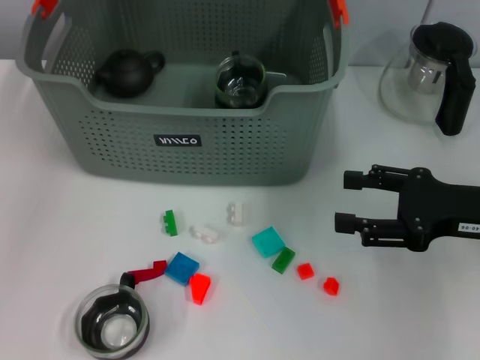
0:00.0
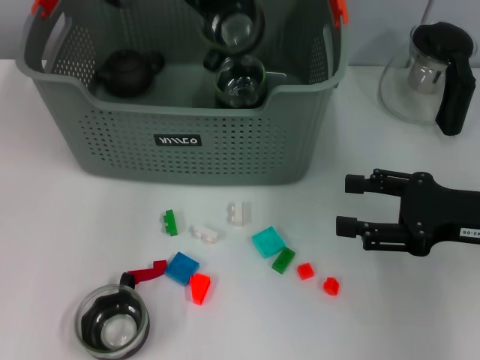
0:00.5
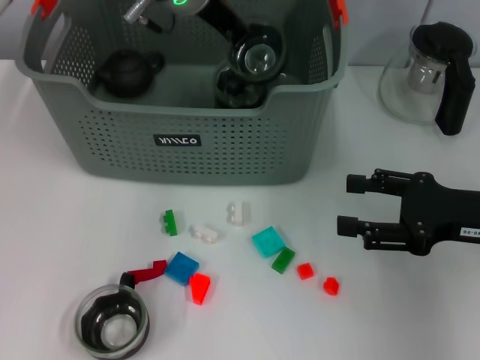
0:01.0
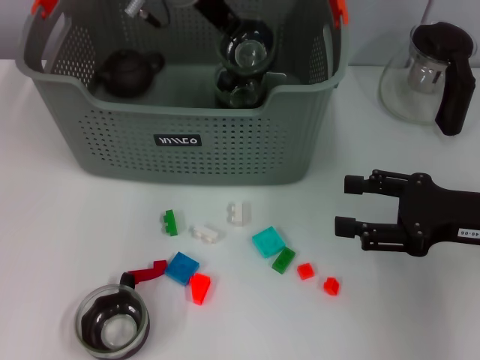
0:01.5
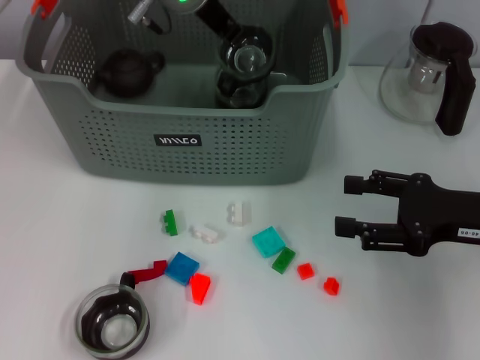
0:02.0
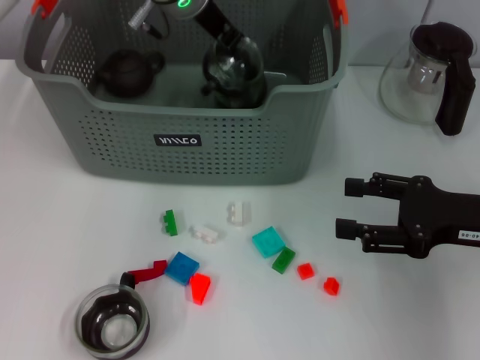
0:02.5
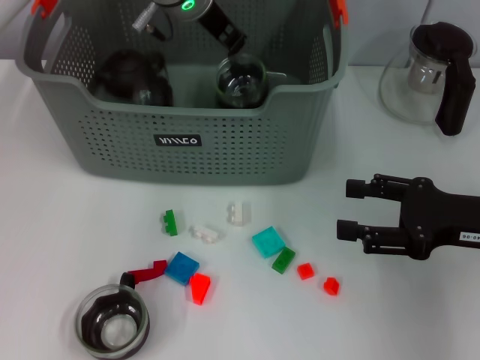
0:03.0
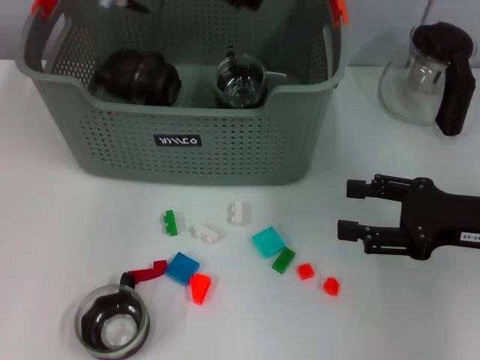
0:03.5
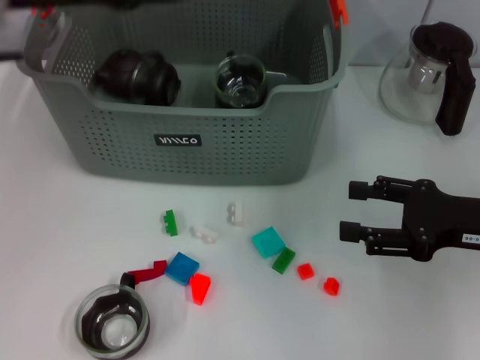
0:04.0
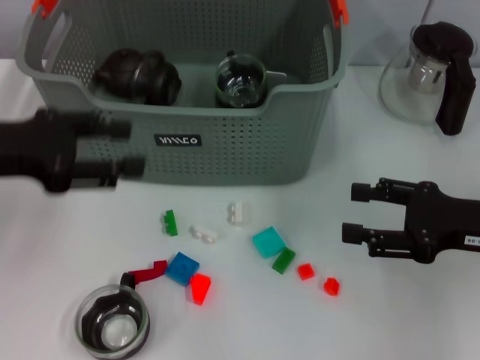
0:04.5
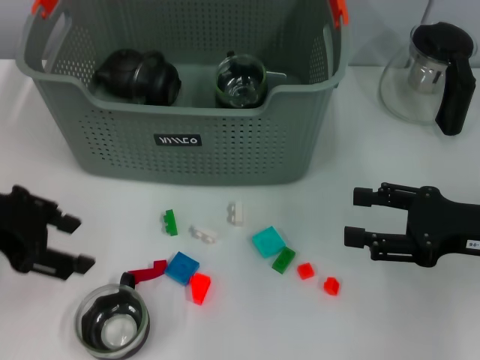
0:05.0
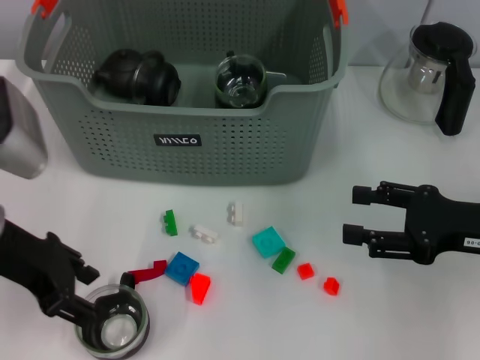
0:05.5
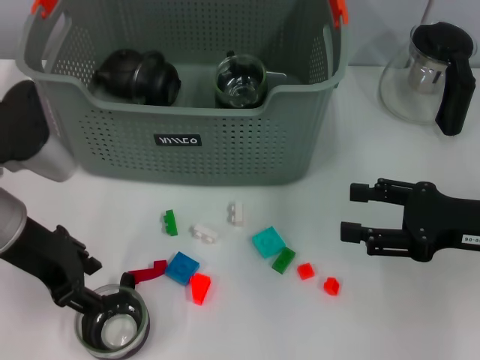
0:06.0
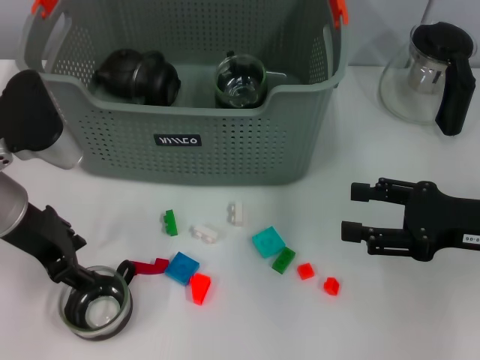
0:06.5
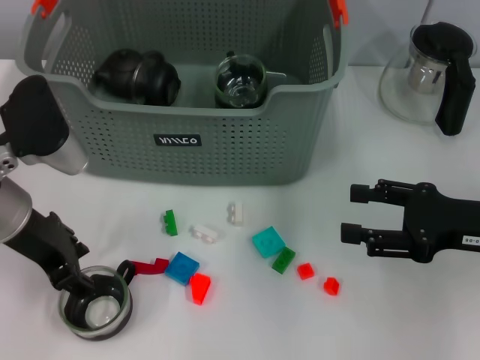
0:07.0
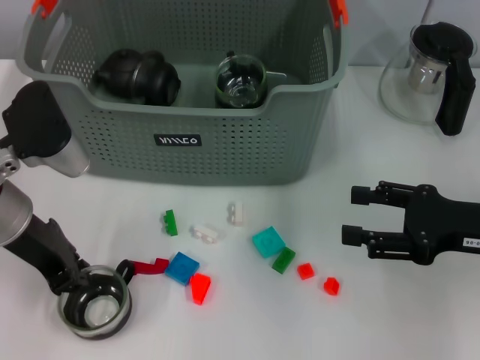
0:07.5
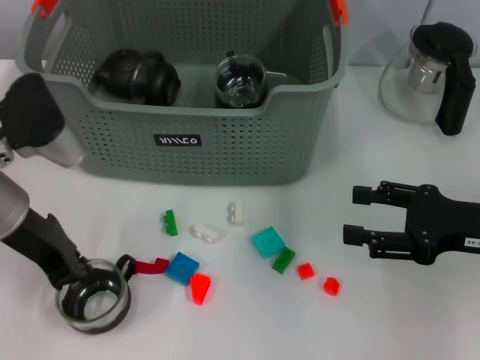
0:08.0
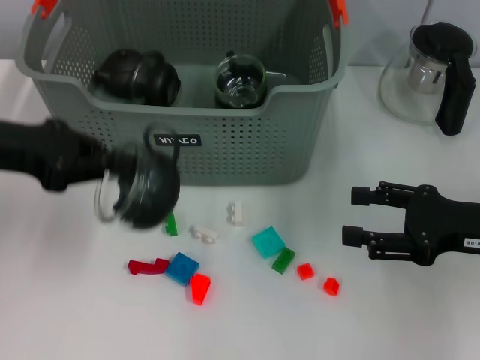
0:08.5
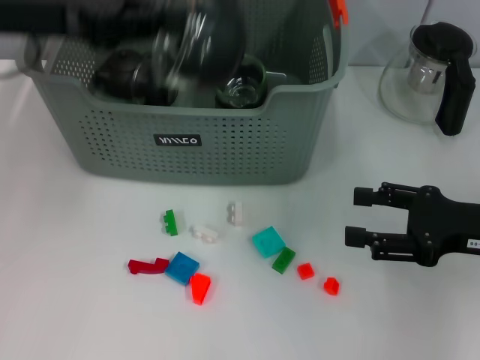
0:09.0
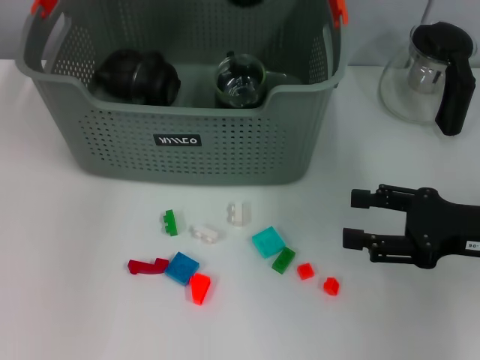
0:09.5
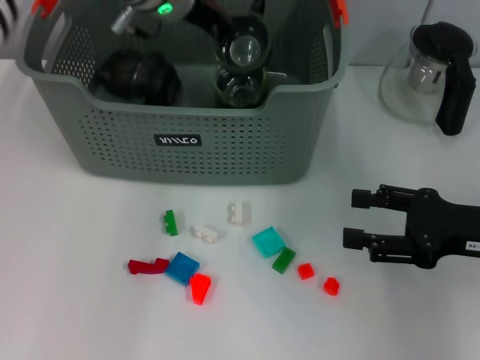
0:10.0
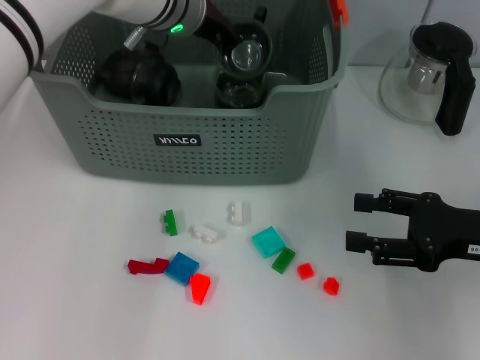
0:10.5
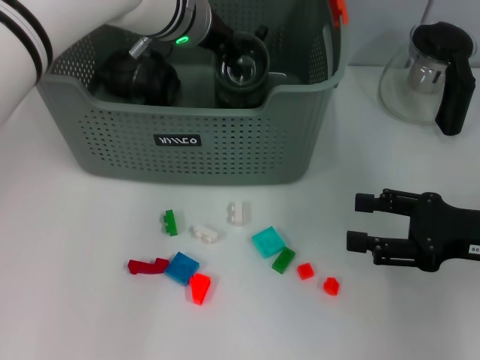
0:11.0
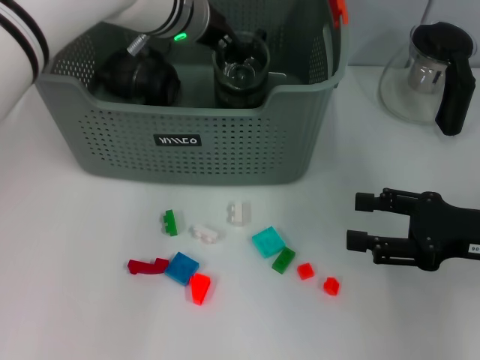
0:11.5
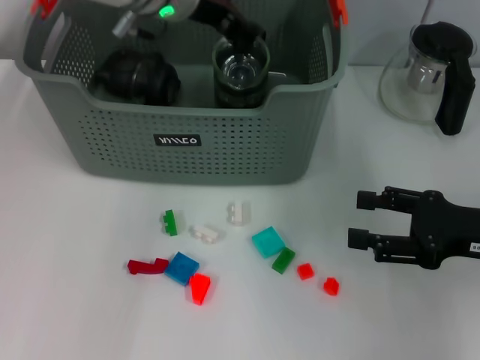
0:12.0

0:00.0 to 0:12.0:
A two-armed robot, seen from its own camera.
Task of the whole recording: pick up the teacup on the table and place it into the storage bin, pick up the block on the table and place it into the storage bin.
Step, 0:00.0 to 0:02.5: Place the cup in the storage box with left gripper.
Step, 0:03.0 to 0:07.5: Grasp the cup with left gripper.
Step, 0:08.0 to 0:11.5: Place the cup in the storage box with left gripper.
0:00.0 to 0:02.0: The left gripper travels to the right and downward by some 15 cm.
0:02.0 to 0:04.0: The left gripper moves to the left and backward, approximately 20 cm, and opens its fingers.
0:04.0 to 0:06.0: The left gripper is displaced downward and backward by approximately 15 cm.
0:06.0 to 0:08.0: The left gripper closes its fingers.
0:08.0 to 0:10.0: The left gripper is displaced forward, to the right and upward by about 20 cm.
0:10.0 to 0:12.0: The left gripper opens.

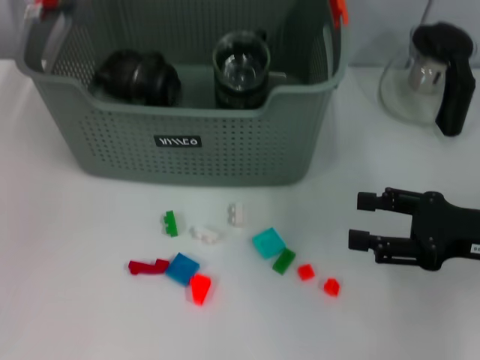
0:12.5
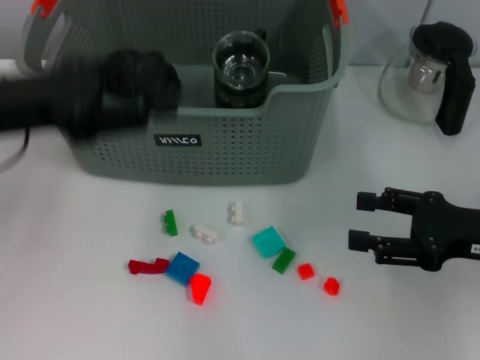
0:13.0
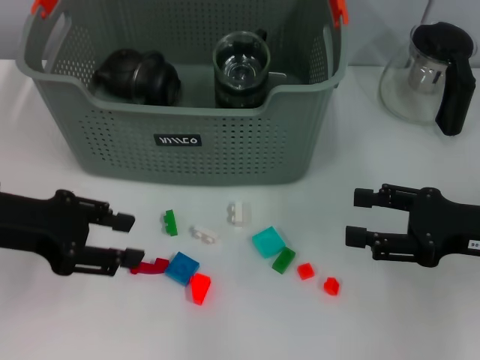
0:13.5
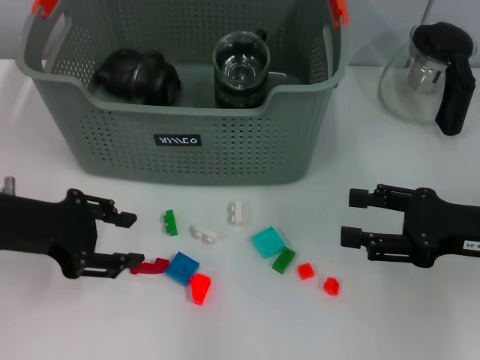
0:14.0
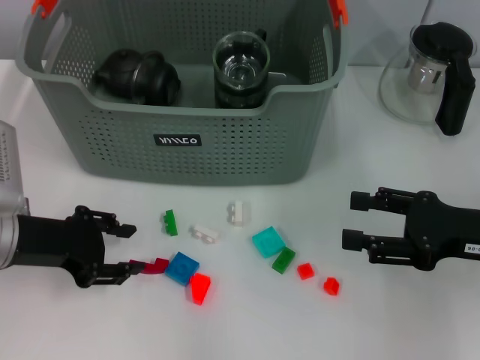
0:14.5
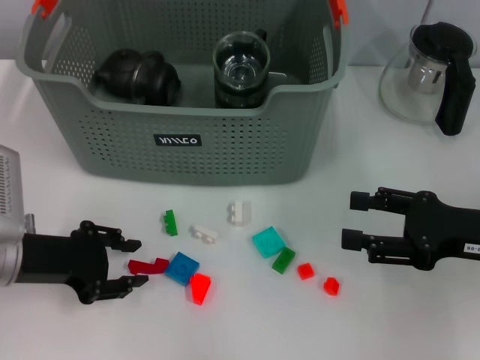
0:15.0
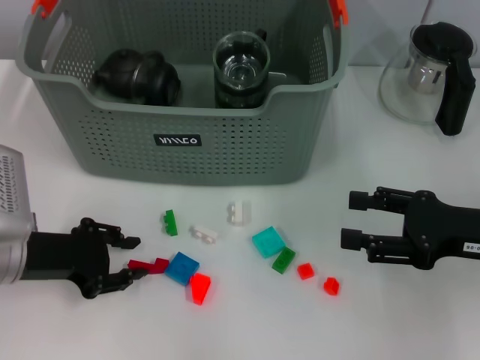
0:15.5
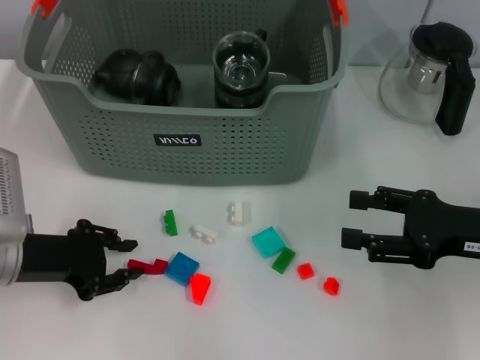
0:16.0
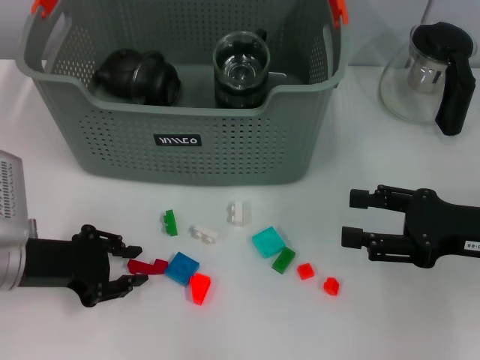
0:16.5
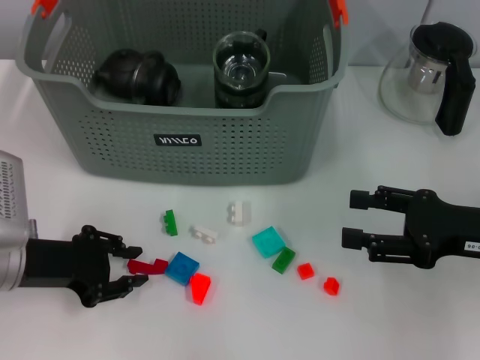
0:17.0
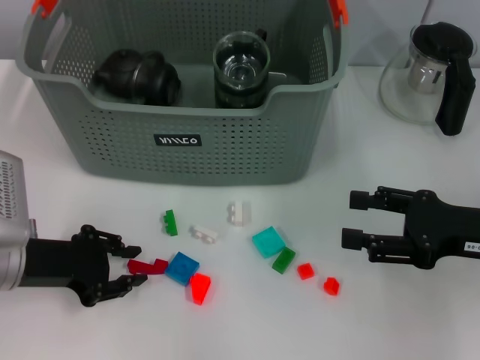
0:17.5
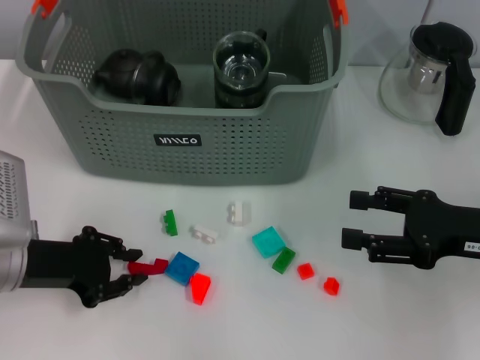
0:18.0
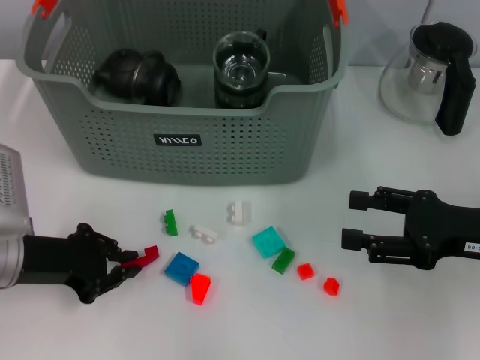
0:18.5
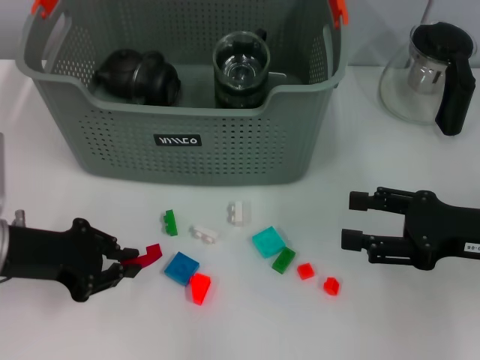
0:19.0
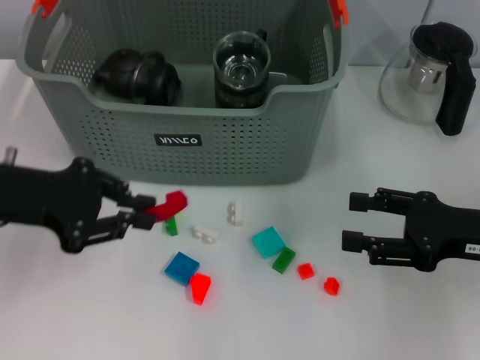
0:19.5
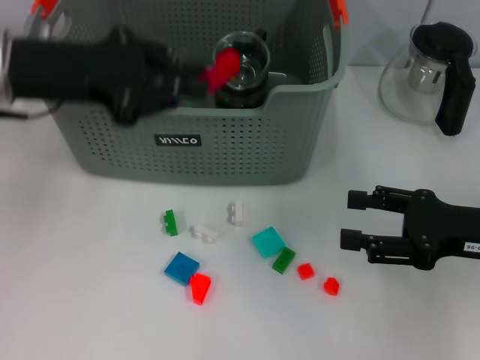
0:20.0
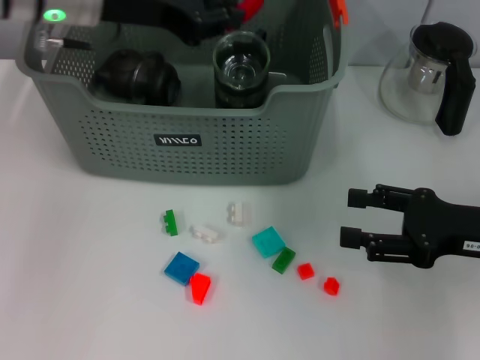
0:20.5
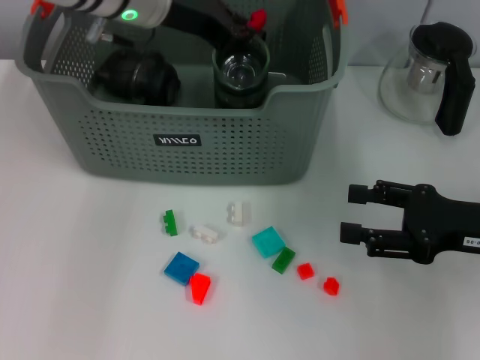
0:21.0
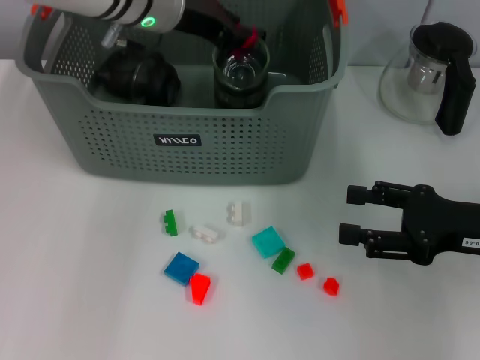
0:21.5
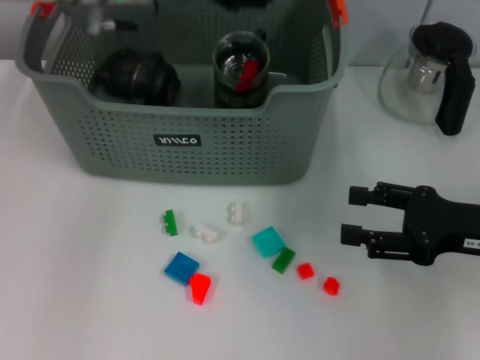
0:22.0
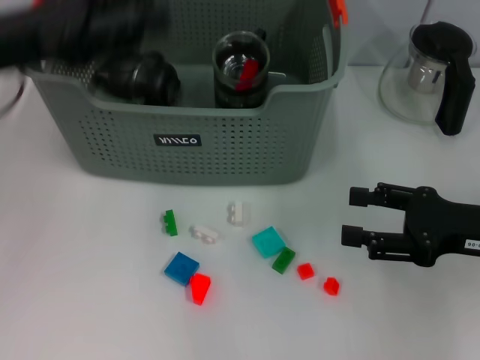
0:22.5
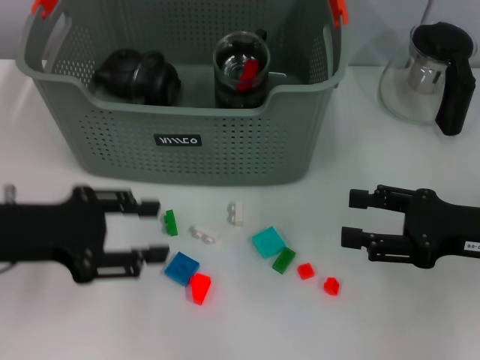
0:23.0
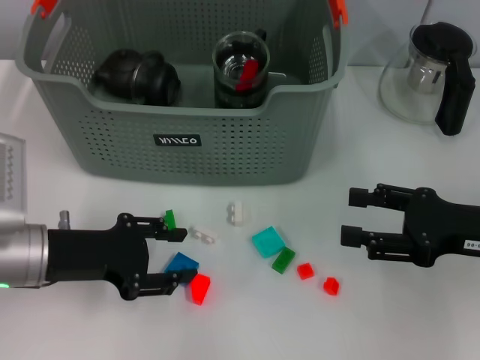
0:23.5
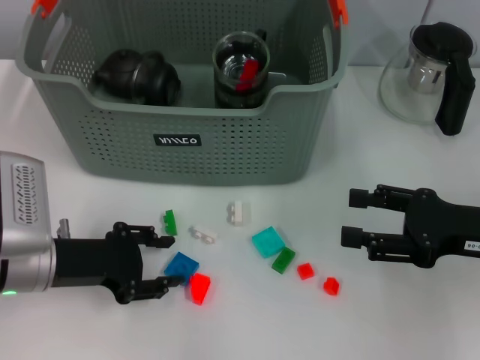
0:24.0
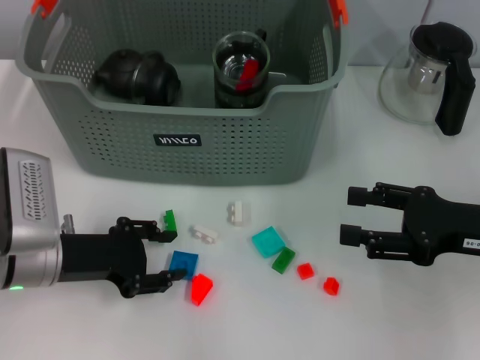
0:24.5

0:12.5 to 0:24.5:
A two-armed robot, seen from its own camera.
Task of the whole recording: pick up the teacup on the table and place it into the storage bin, pick up the block on the table and place it into the storage bin.
Step, 0:12.5 to 0:18.0: Grasp the red block with left gripper.
Step, 0:18.5 to 0:21.5: Place the red block in the storage box with left gripper.
0:12.5 to 0:14.5: The left gripper goes approximately 20 cm downward and backward.
0:14.5 to 0:16.5: The grippers move only a little.
0:16.5 to 0:18.5: Both grippers stay put.
0:18.5 to 0:20.5: The left gripper shifts approximately 25 cm upward, forward and to the right.
0:20.5 to 0:22.5: The left gripper shifts some 10 cm backward and to the left, and opens up.
0:22.5 to 0:24.5: The left gripper shifts roughly 15 cm downward.

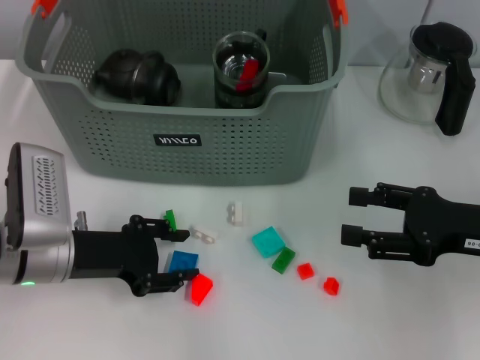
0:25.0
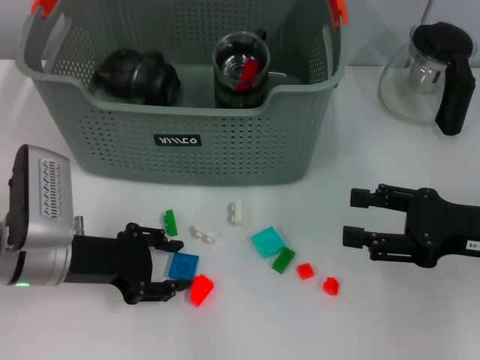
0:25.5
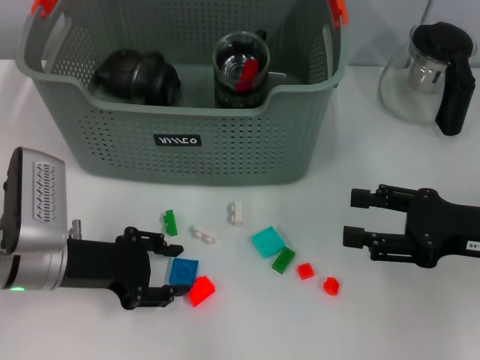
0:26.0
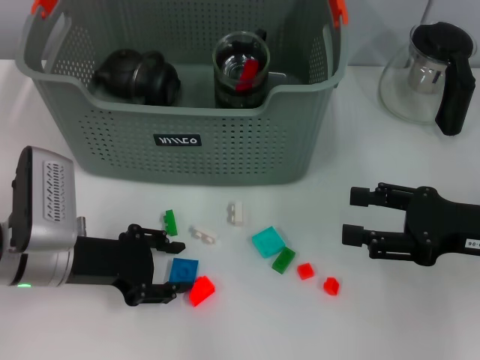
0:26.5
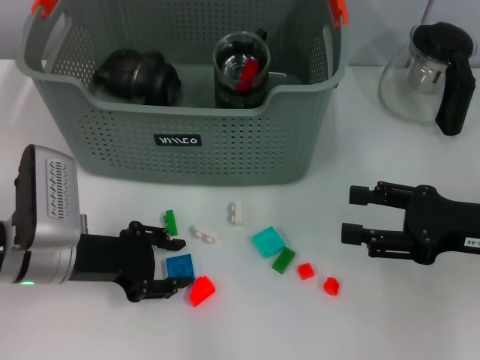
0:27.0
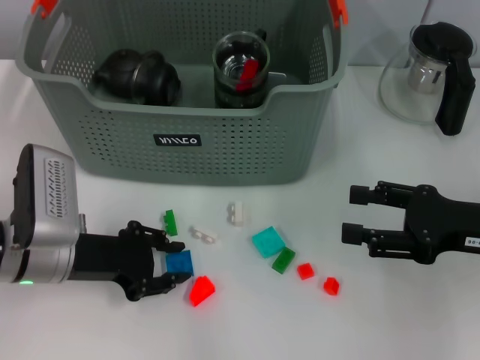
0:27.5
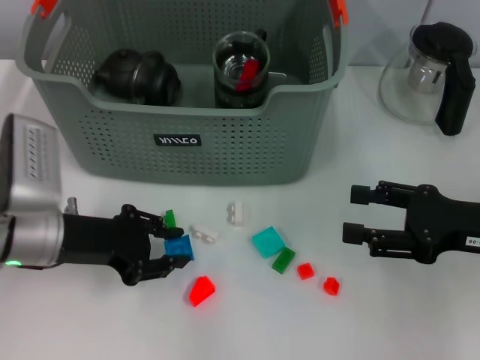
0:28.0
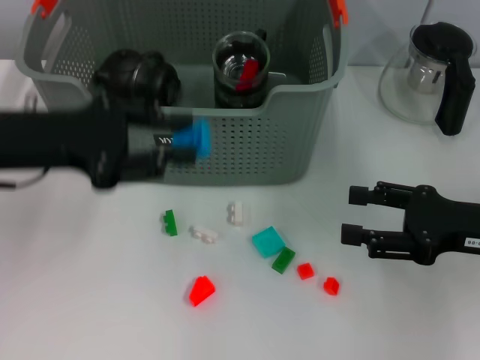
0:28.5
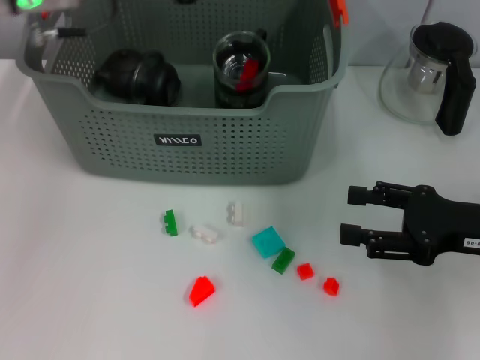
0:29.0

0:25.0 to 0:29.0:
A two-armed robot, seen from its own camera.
Task of the whole recording: pick up the teacup on the table and place it into the storage bin, pick up the block on the table and place it into the storage bin.
Step, 0:25.0 to 0:27.5: Grasp the dark blue block with left gripper.
0:25.0 to 0:27.0: The grippers stay close to where they were, moving slightly.
0:27.0 to 0:29.0: The left gripper heads upward and forward, covering some 25 cm.
